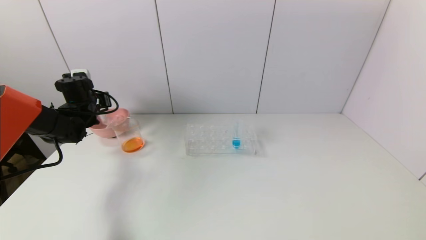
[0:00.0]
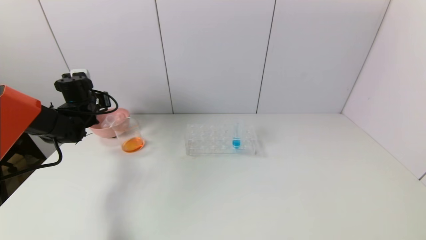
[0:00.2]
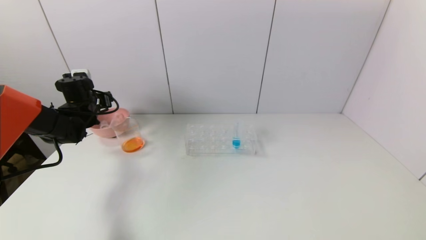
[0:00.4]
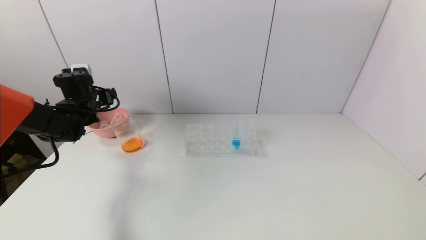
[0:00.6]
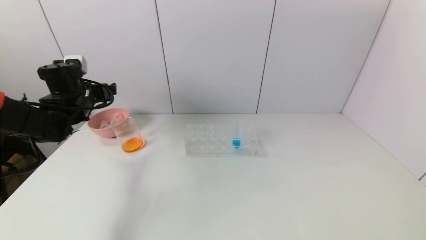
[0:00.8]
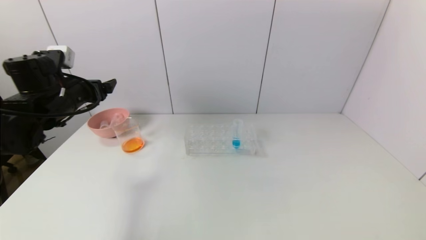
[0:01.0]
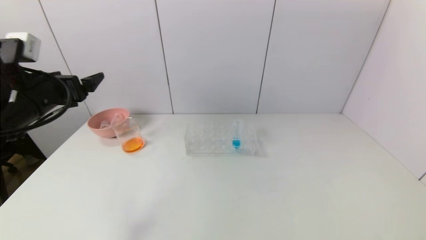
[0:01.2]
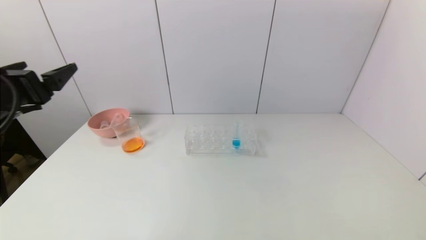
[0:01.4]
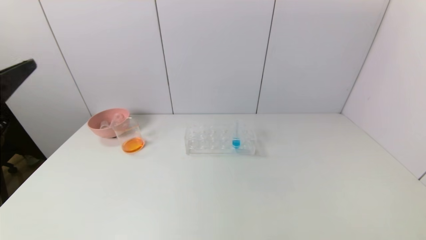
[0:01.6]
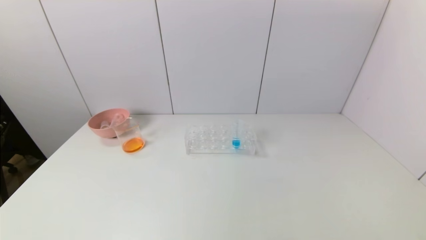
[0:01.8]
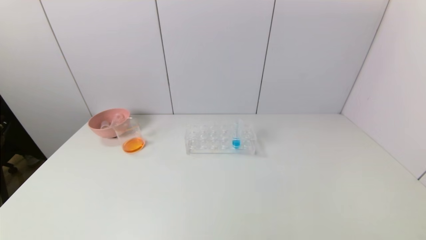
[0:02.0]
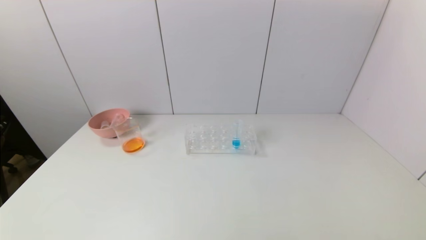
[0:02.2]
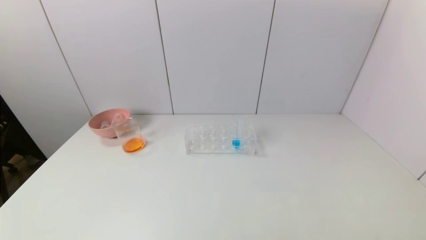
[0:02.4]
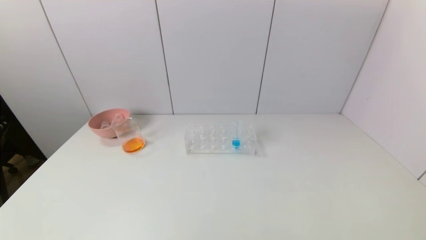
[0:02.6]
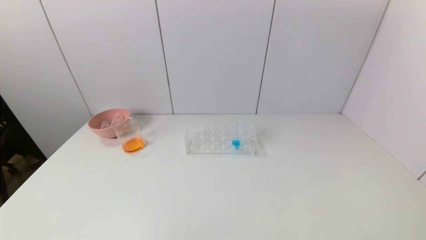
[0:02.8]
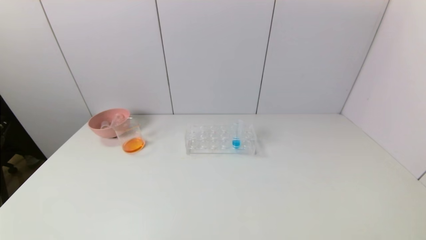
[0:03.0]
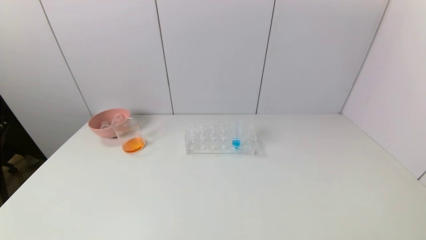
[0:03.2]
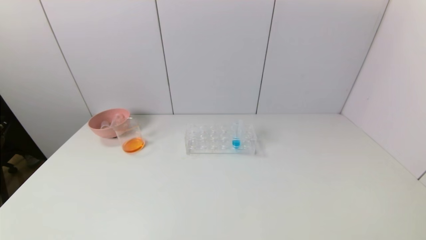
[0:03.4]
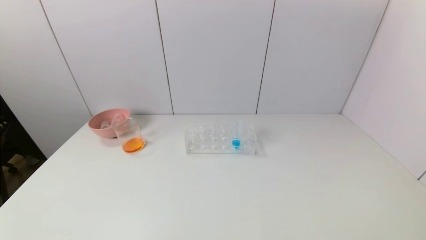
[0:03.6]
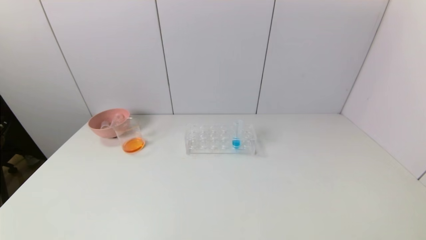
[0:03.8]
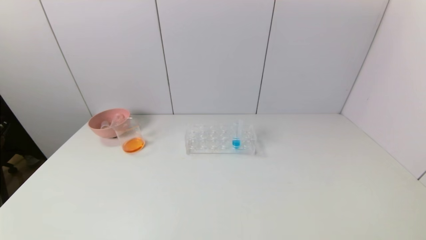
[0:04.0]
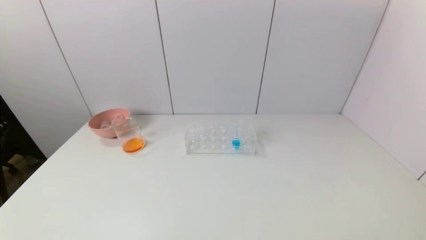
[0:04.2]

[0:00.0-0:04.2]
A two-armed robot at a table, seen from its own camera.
Task of the whole recording: pick up the test tube with yellow pigment and the test tube with red pigment by grippers and pour them into the beaker.
0:00.0 to 0:01.4: The left gripper travels backward and upward by some 30 cm, and opens.
0:01.4 to 0:02.8: The left gripper moves backward and downward, roughly 25 cm.
